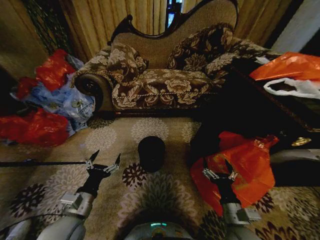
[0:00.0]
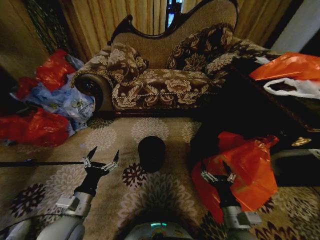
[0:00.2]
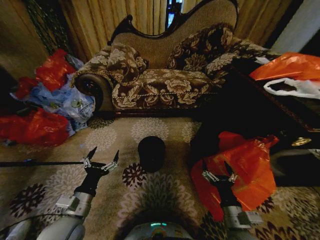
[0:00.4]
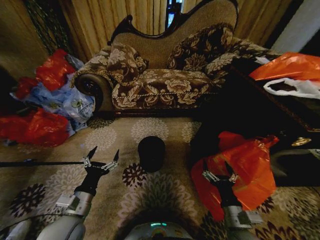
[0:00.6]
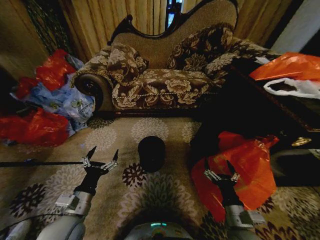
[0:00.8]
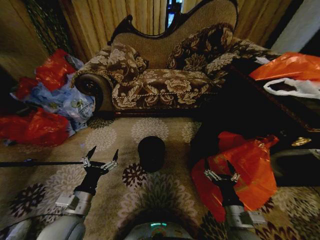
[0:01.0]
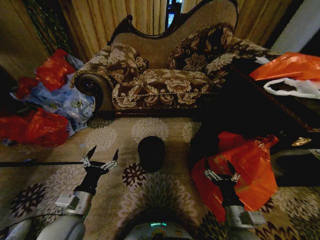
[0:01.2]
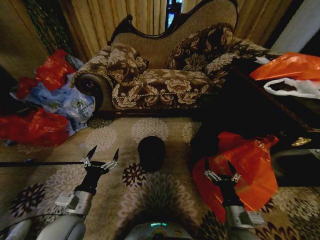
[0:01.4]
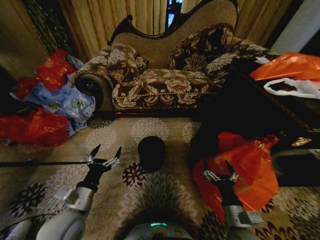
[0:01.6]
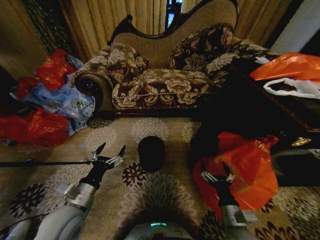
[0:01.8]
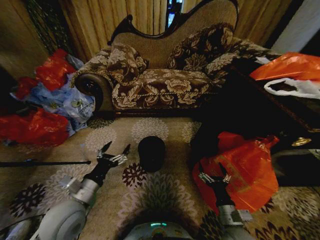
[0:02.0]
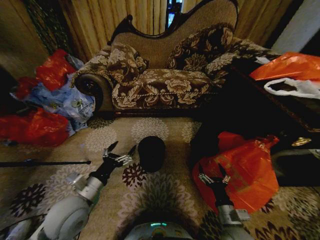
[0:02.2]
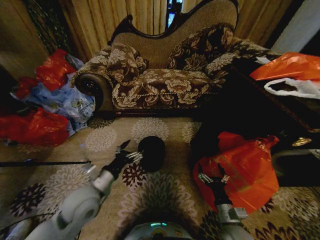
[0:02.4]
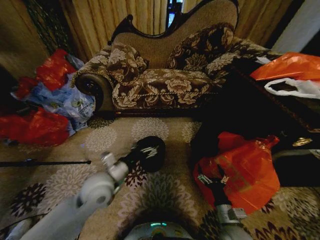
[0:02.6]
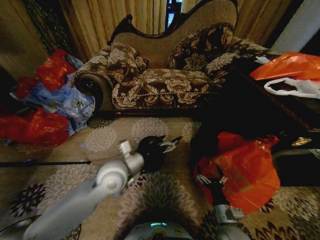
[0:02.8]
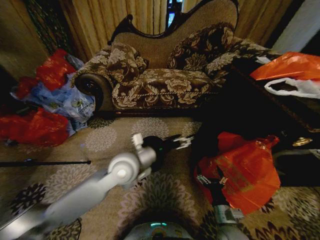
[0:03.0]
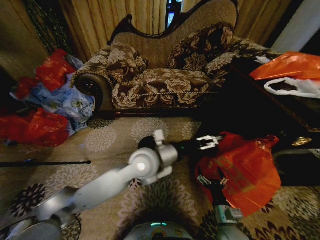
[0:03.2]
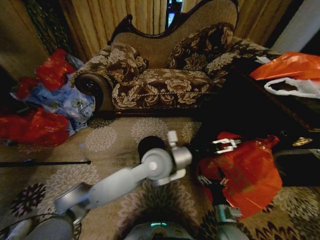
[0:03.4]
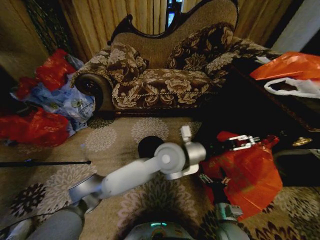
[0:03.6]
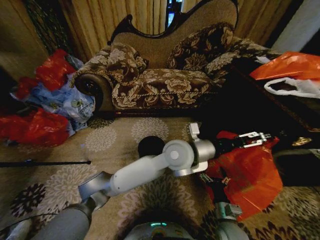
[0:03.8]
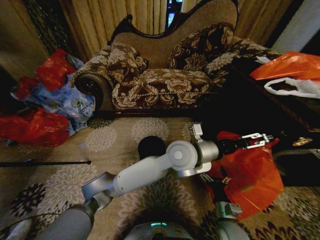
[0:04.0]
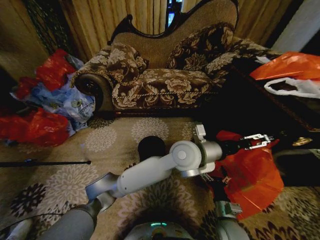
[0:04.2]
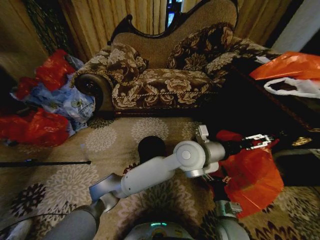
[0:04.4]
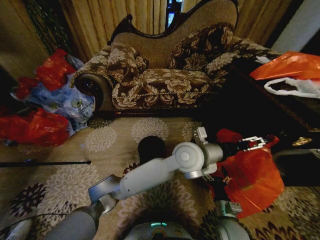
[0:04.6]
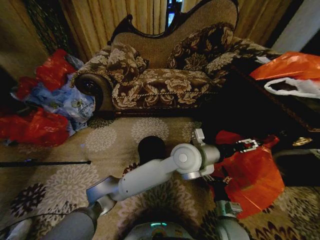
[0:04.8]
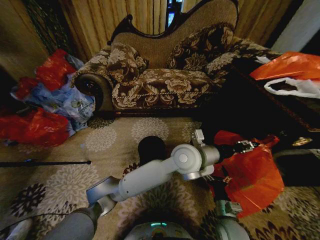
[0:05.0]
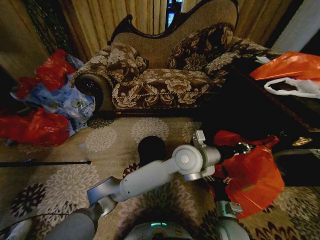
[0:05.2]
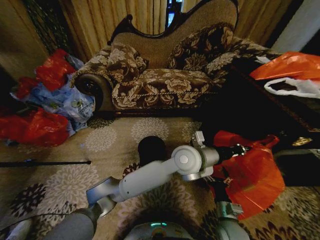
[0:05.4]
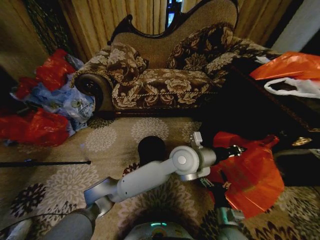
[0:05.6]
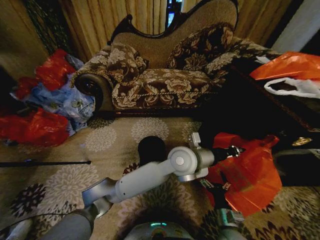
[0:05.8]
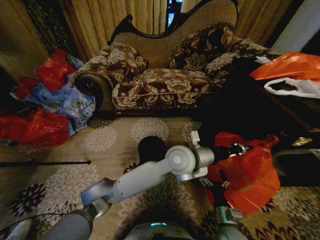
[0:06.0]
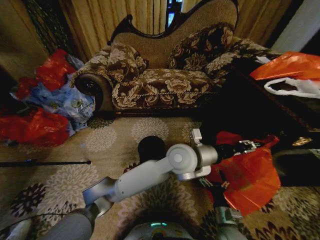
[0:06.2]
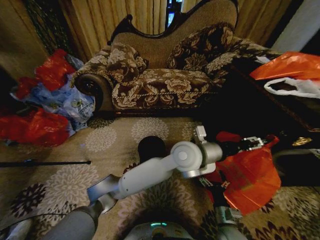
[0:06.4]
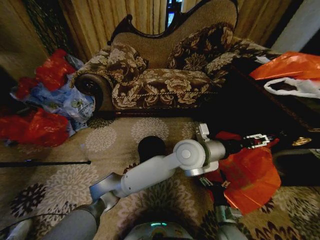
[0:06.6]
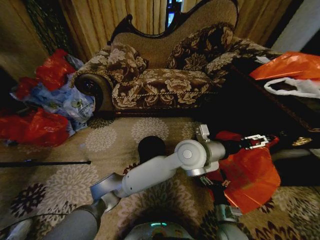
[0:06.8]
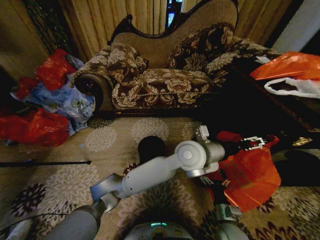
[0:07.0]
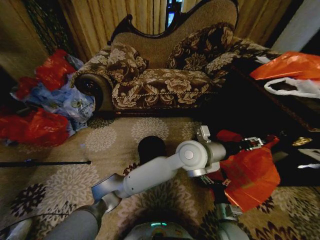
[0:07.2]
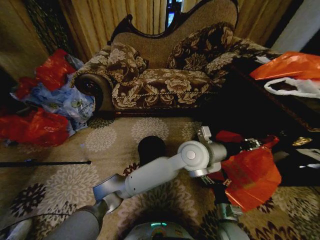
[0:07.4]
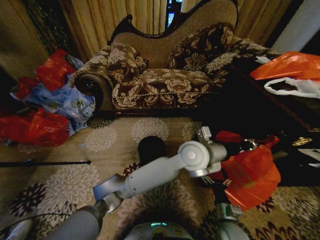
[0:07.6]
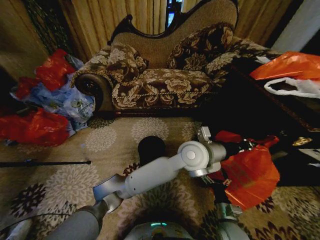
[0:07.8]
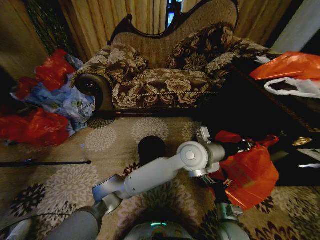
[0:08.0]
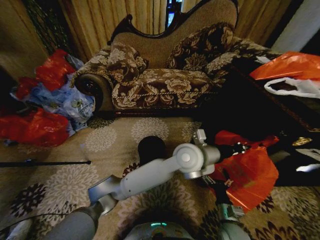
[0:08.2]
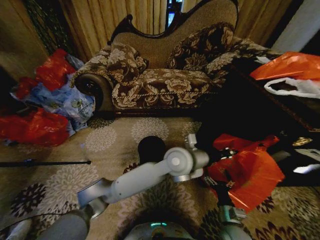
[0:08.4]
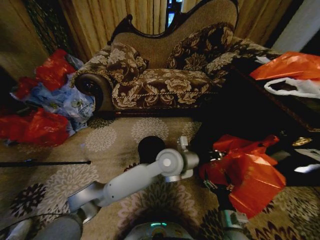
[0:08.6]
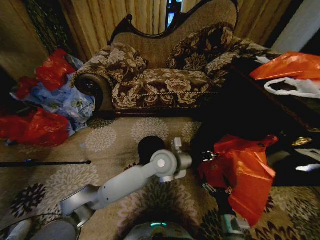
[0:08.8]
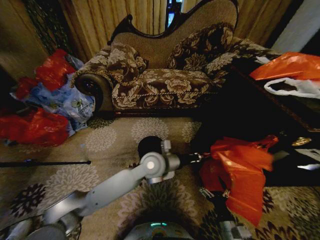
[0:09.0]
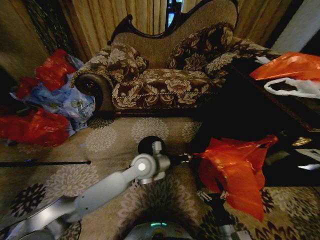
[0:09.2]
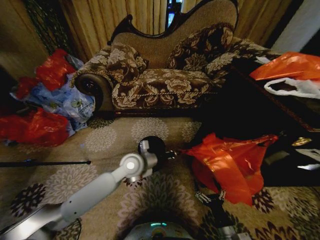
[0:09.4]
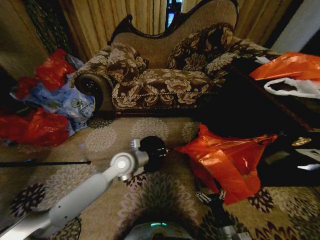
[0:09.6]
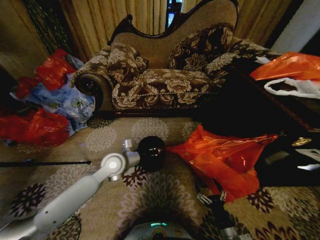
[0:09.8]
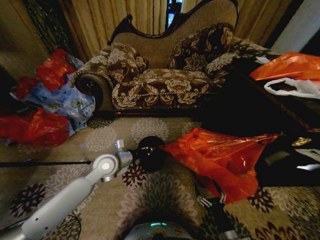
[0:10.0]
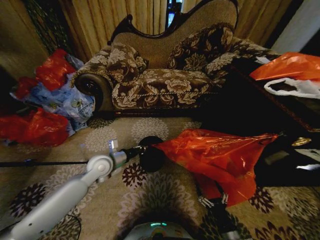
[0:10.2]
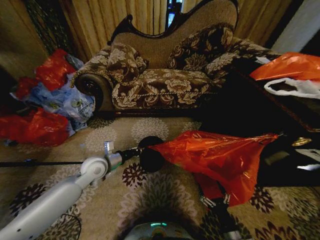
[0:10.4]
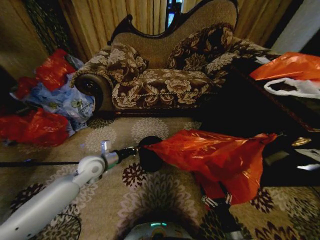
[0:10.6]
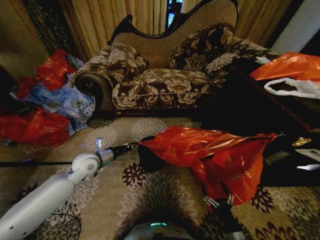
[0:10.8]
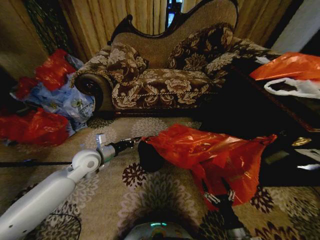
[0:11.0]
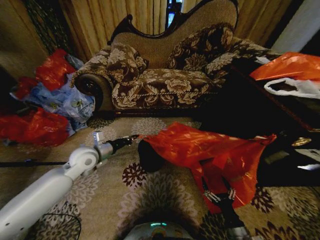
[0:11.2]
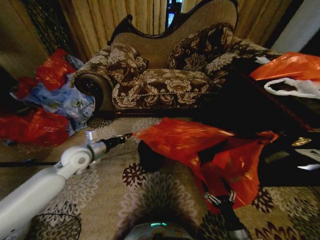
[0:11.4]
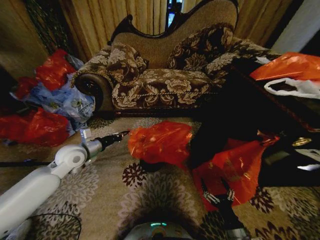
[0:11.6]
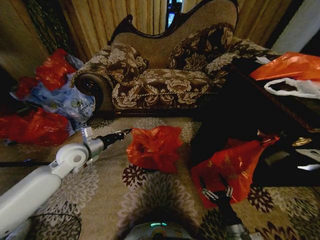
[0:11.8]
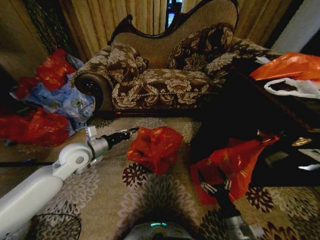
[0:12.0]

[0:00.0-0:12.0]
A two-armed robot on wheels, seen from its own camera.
Task of the whole recording: Place a garbage bag over the trash bin.
0:01.6 to 0:03.0: The right gripper shifts roughly 5 cm downward. The left gripper heads to the right, forward and upward, covering some 25 cm.
0:03.0 to 0:04.4: The left gripper is displaced to the right by roughly 20 cm.
0:04.4 to 0:06.0: The left gripper closes.
0:06.0 to 0:07.6: The left gripper opens, then closes again.
0:07.6 to 0:09.0: The right gripper goes about 5 cm backward. The left gripper goes approximately 15 cm to the left and downward.
0:09.0 to 0:10.4: The left gripper travels to the left by about 25 cm.
0:10.4 to 0:12.0: Both grippers move upward, roughly 5 cm.

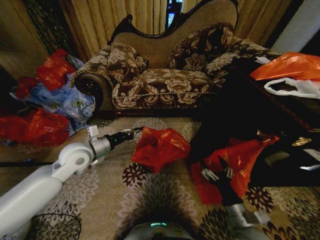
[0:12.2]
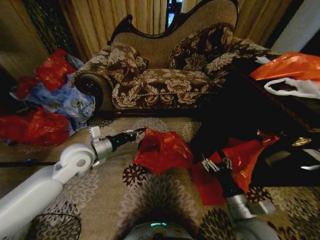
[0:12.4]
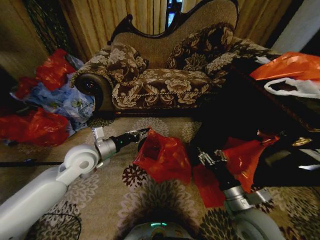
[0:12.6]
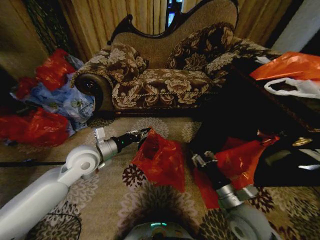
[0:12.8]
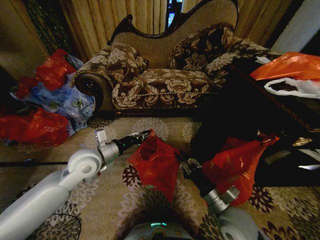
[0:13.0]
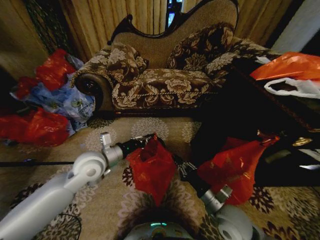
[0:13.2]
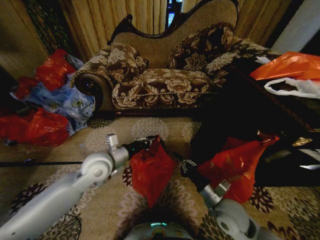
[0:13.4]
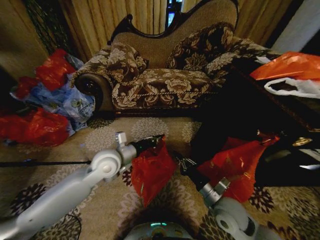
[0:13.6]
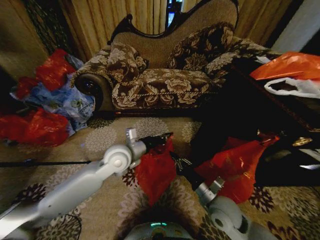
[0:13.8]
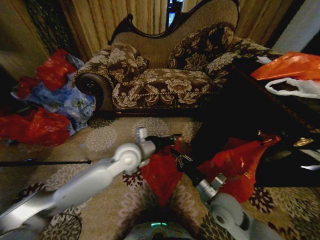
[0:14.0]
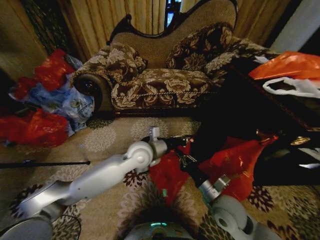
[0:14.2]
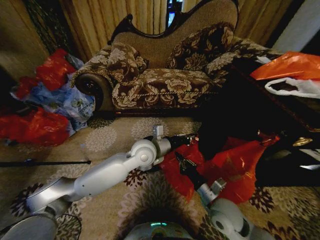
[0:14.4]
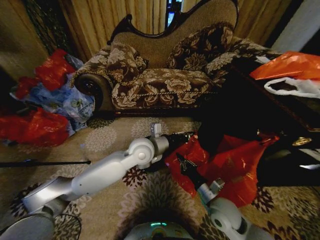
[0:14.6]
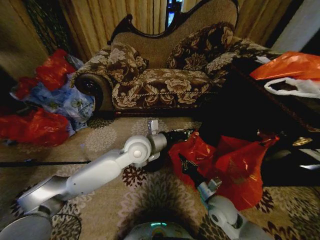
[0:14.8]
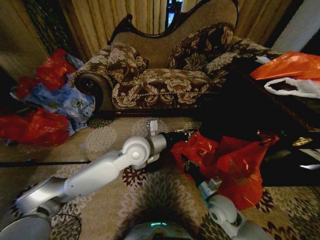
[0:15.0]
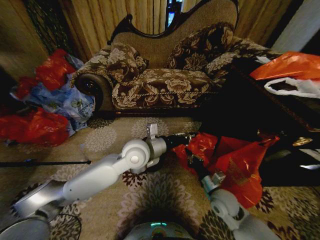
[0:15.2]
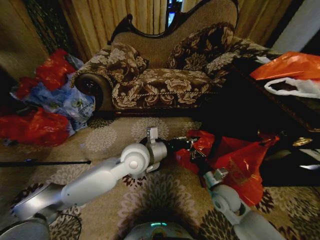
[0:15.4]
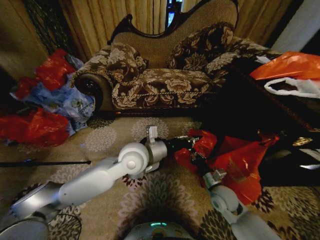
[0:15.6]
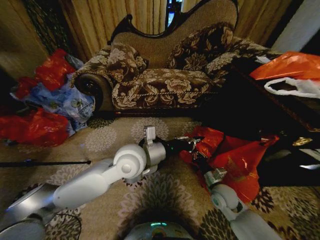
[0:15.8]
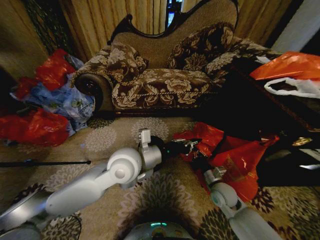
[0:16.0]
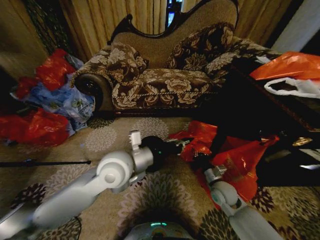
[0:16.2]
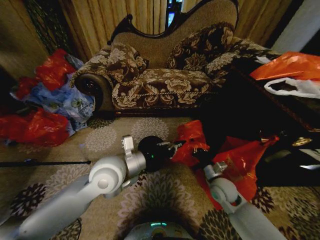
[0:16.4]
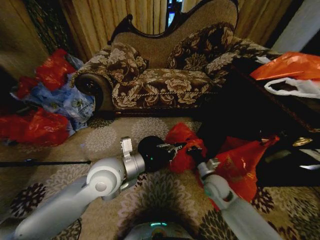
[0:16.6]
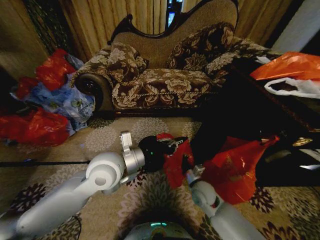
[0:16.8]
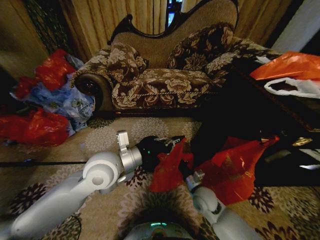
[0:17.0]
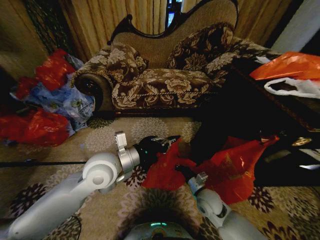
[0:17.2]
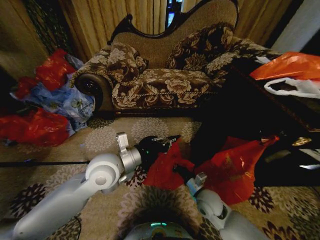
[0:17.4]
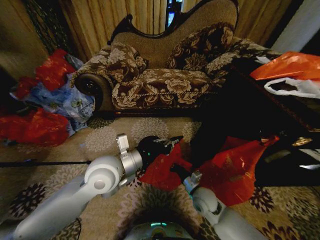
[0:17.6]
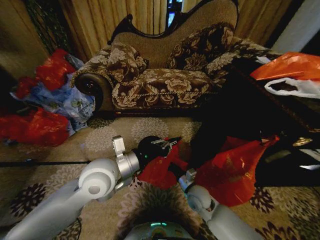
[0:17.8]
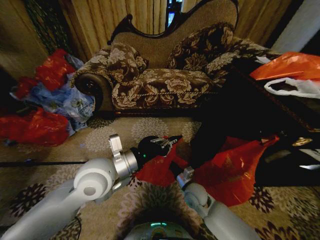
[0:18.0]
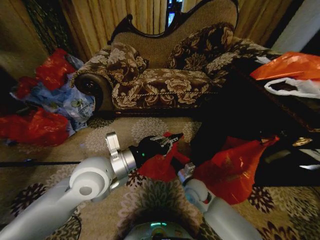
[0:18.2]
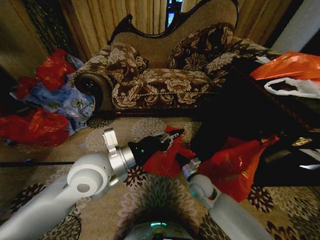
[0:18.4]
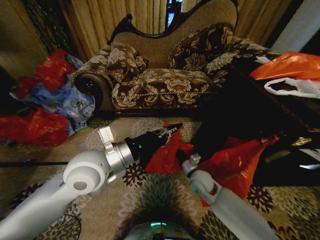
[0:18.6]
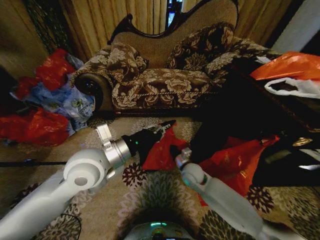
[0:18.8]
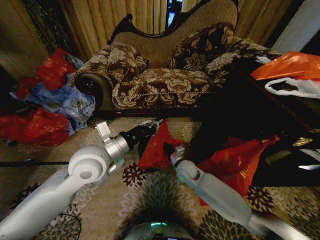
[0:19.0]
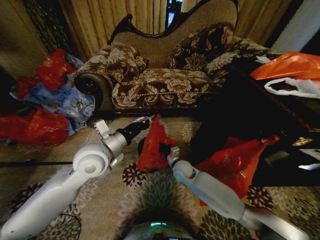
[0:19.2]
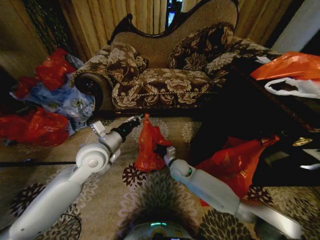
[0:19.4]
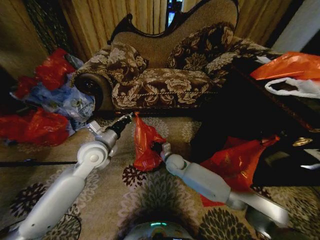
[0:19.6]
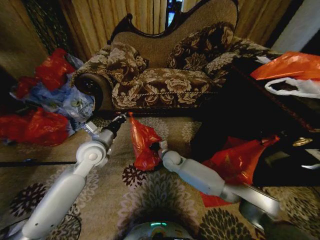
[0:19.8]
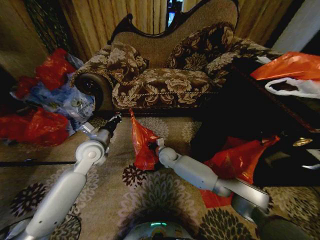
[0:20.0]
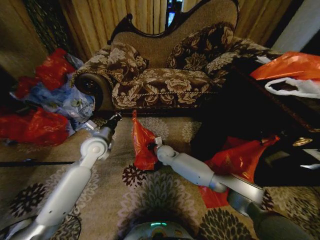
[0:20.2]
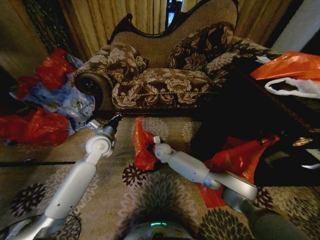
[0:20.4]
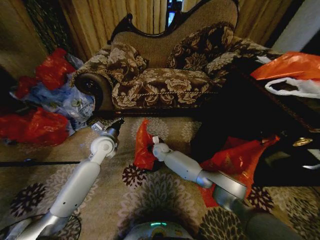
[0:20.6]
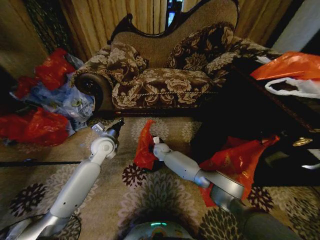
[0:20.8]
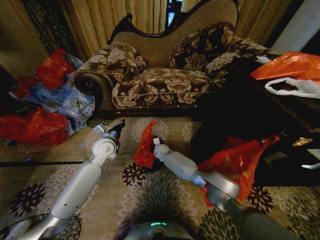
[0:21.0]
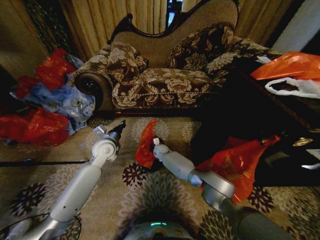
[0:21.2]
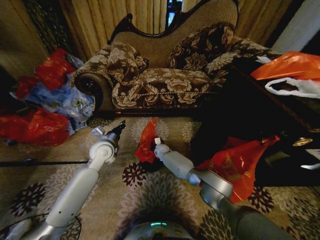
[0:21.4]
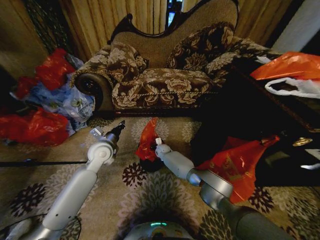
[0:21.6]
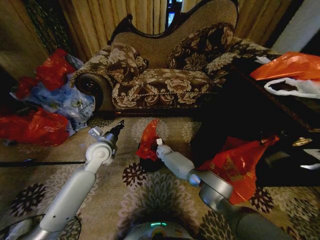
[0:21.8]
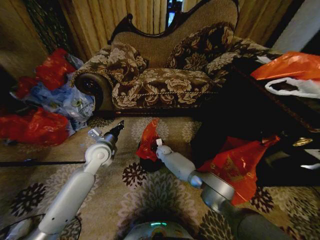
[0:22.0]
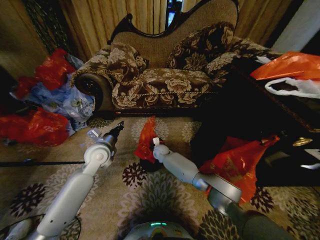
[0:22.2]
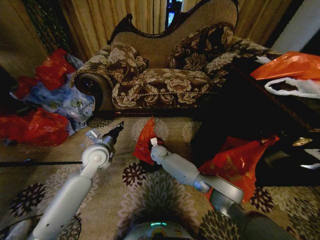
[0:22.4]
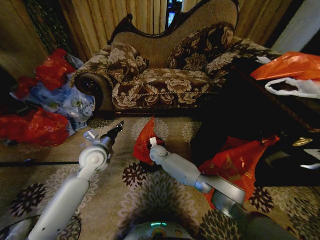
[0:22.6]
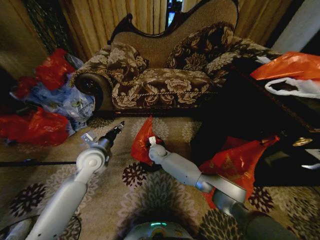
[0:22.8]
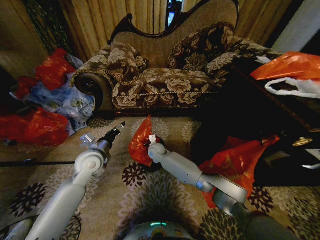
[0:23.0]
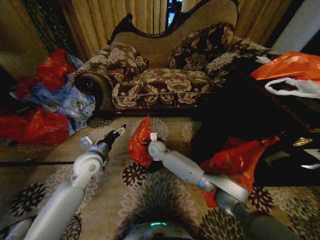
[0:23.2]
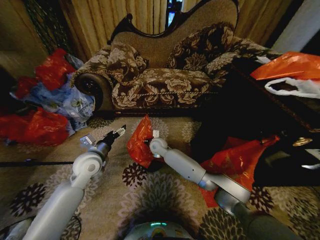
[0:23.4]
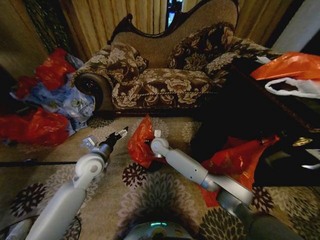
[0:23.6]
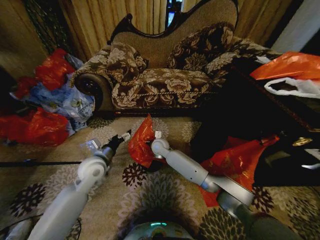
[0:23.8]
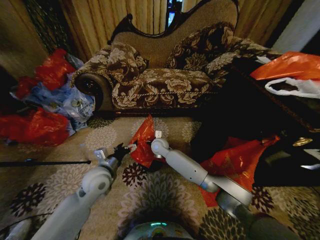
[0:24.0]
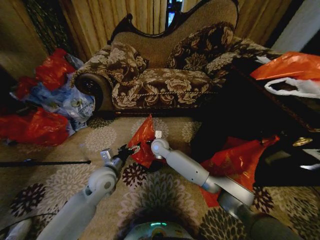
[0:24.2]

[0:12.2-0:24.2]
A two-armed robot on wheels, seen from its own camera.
Task of the whole recording: Place a garbage bag over the trash bin.
0:12.2 to 0:13.8: The left gripper shifts about 15 cm to the right, while the right gripper moves forward and to the left, about 10 cm, and closes its fingers.
0:13.8 to 0:15.2: The right gripper ends up some 5 cm from where it was; the left gripper moves to the right, approximately 5 cm.
0:15.2 to 0:16.6: The right gripper goes about 5 cm forward, while the left gripper shifts approximately 10 cm backward and to the left.
0:16.6 to 0:18.2: The right gripper heads to the left, covering some 5 cm.
0:18.2 to 0:19.8: The left gripper goes approximately 15 cm forward, to the left and downward. Meanwhile the right gripper moves forward and to the left, about 15 cm.
0:19.8 to 0:21.2: The right gripper goes about 15 cm forward, downward and to the left. The left gripper shifts roughly 5 cm forward.
0:21.2 to 0:22.6: Both grippers move backward, approximately 5 cm. The right gripper opens its fingers.
0:22.6 to 0:24.2: The left gripper is displaced downward and backward by approximately 10 cm, and opens up; the right gripper heads upward, covering approximately 10 cm, and opens.
